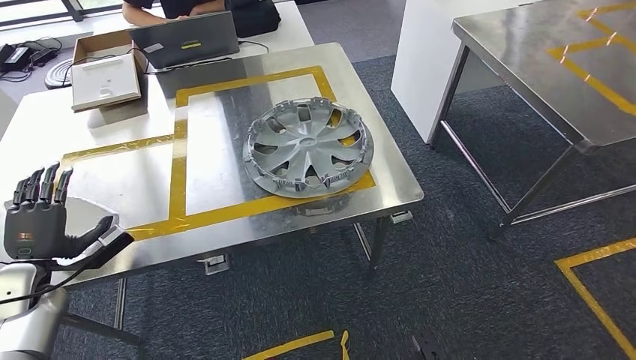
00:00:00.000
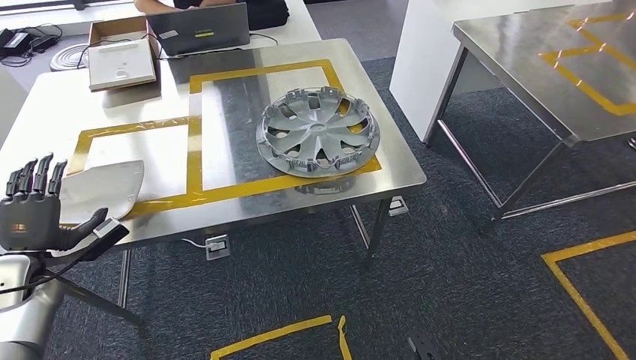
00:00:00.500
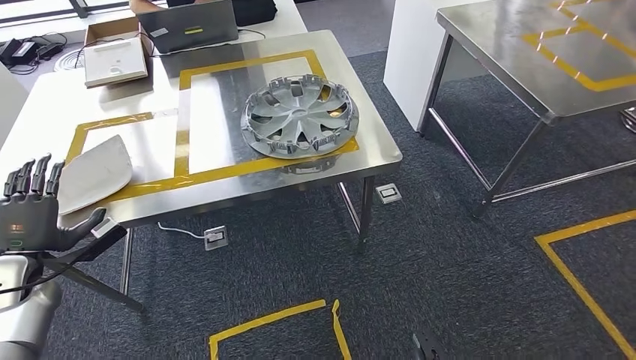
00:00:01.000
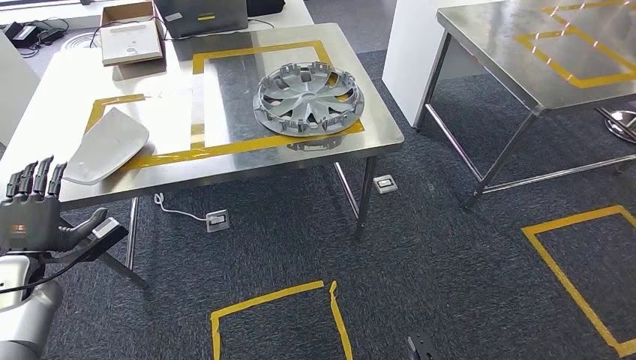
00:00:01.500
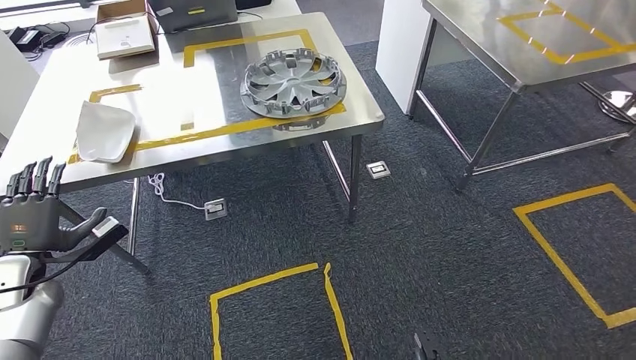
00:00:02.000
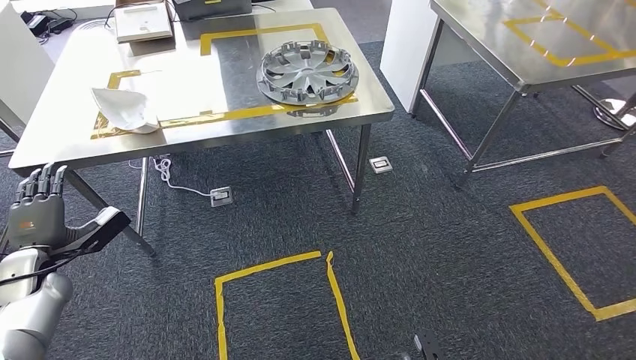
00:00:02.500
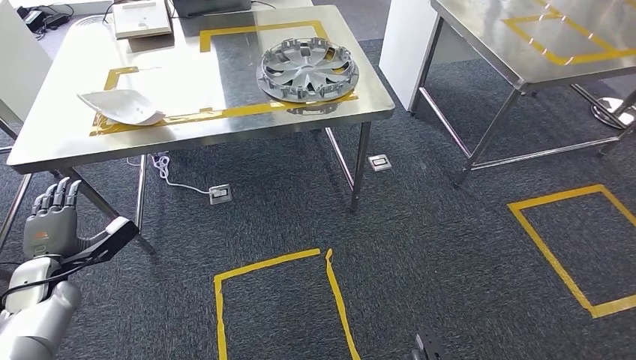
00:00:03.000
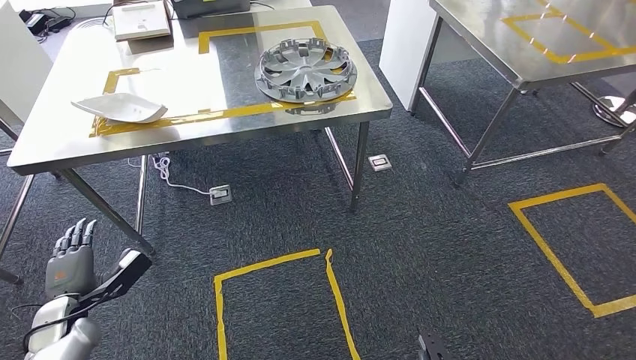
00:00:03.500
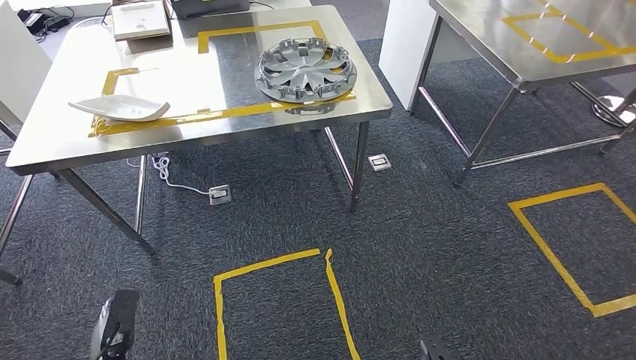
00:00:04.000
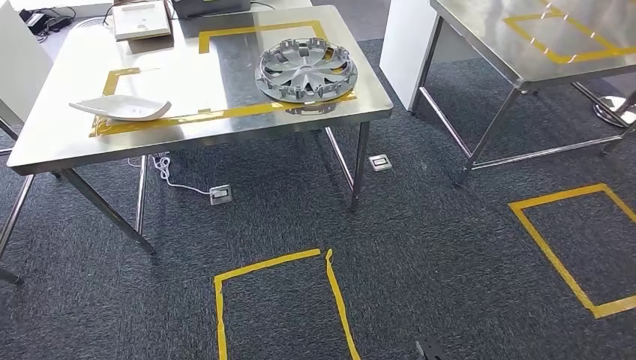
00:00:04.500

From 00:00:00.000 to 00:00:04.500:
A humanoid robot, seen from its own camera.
Step, from 00:00:01.500 to 00:00:04.000: Return to the initial position at the workbench.
